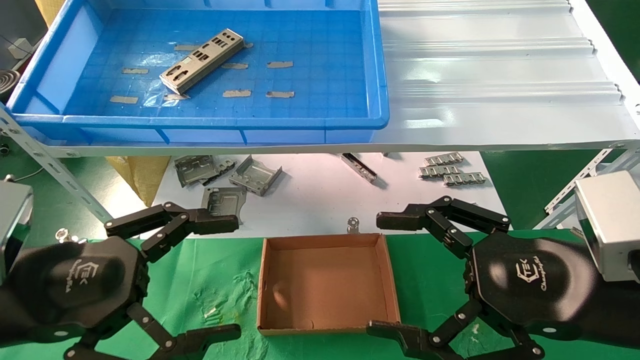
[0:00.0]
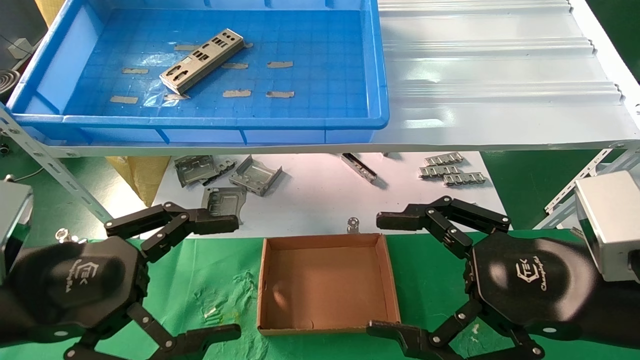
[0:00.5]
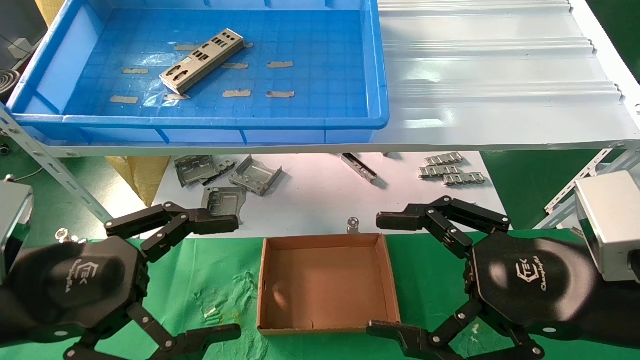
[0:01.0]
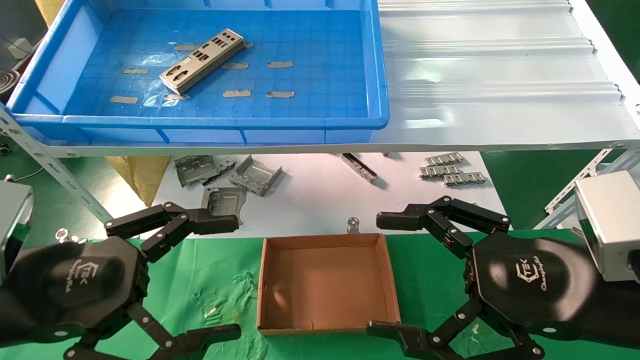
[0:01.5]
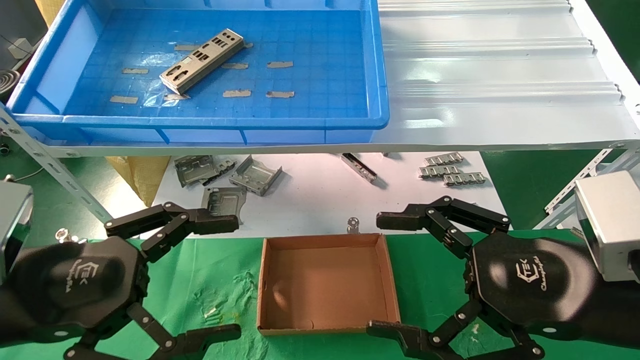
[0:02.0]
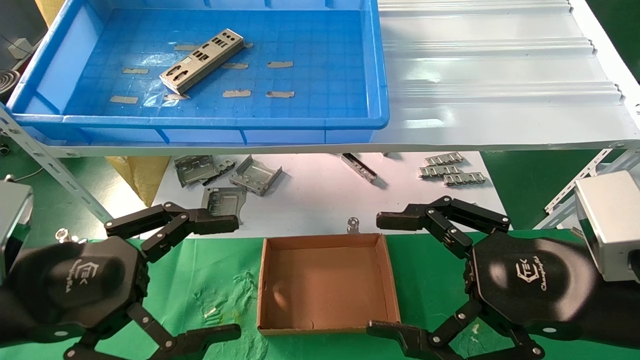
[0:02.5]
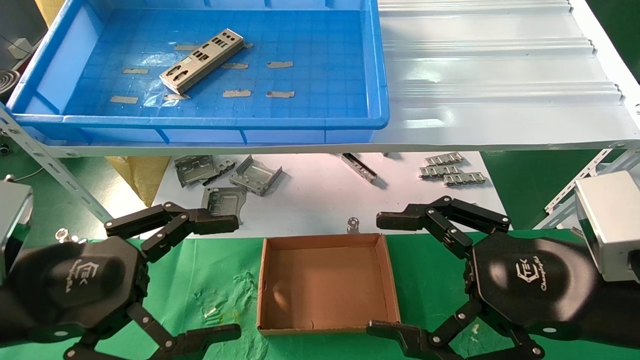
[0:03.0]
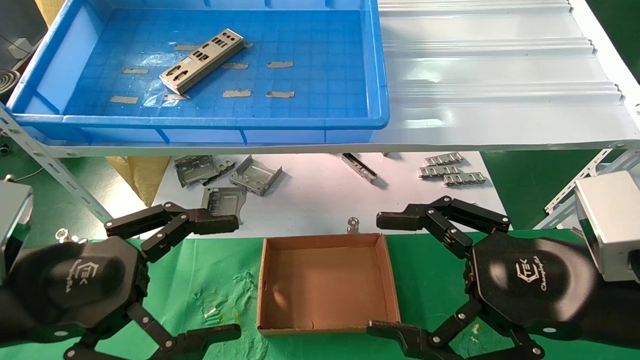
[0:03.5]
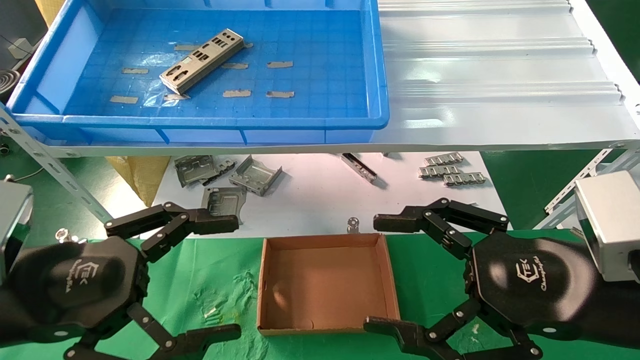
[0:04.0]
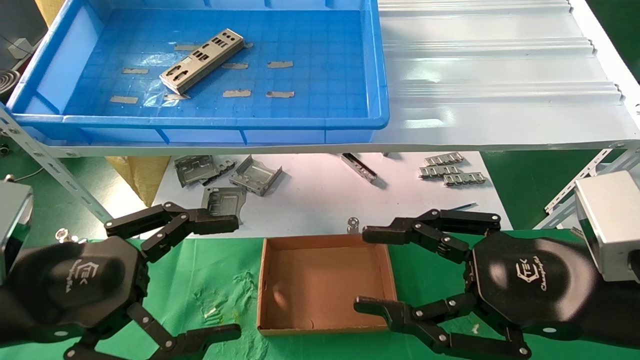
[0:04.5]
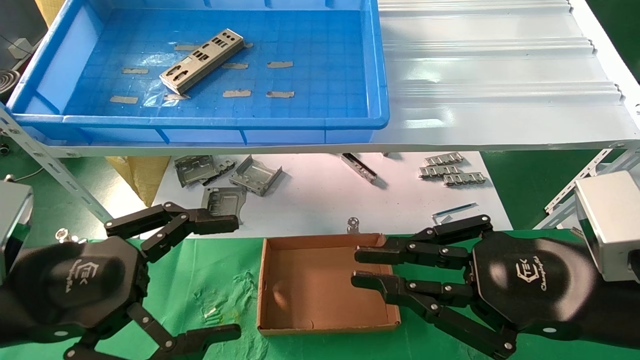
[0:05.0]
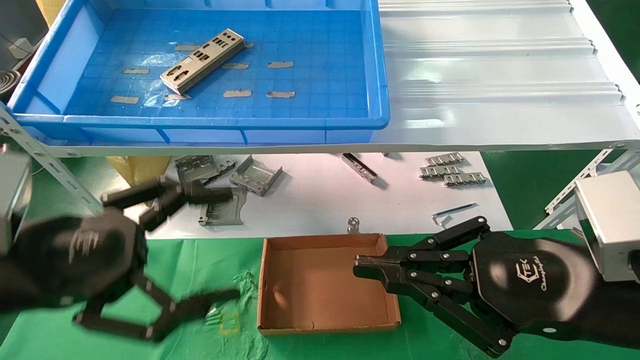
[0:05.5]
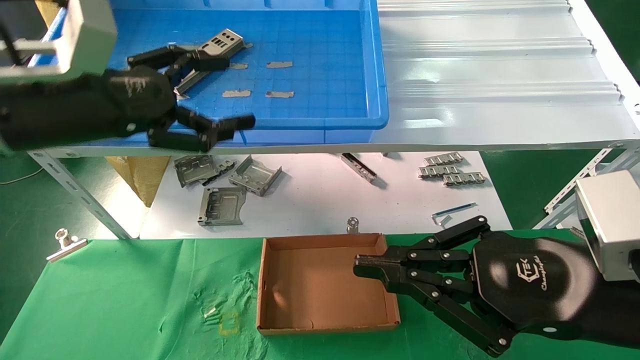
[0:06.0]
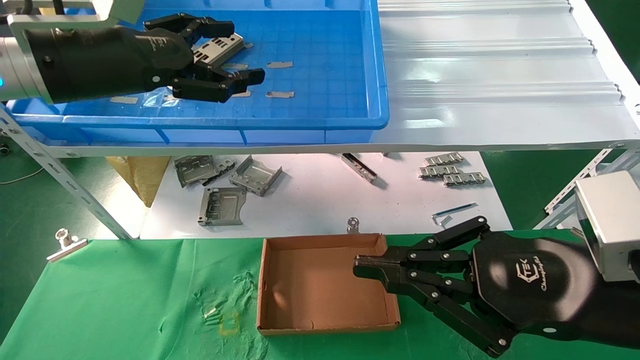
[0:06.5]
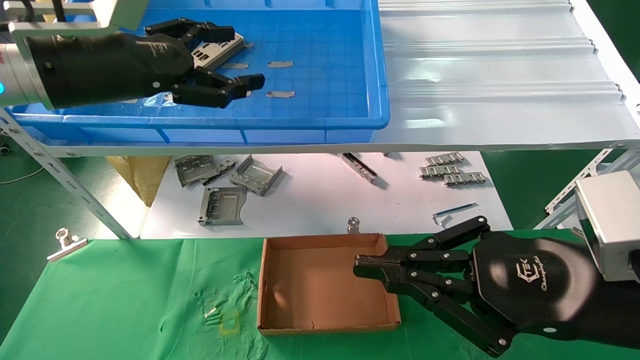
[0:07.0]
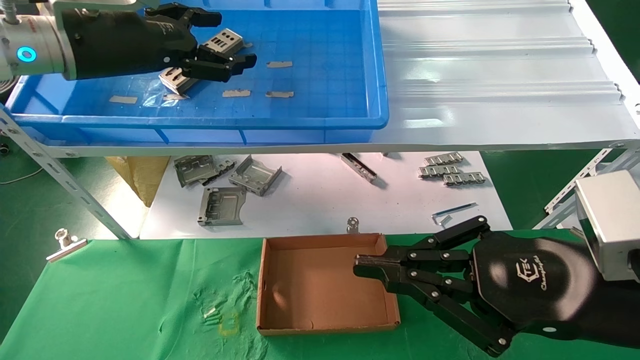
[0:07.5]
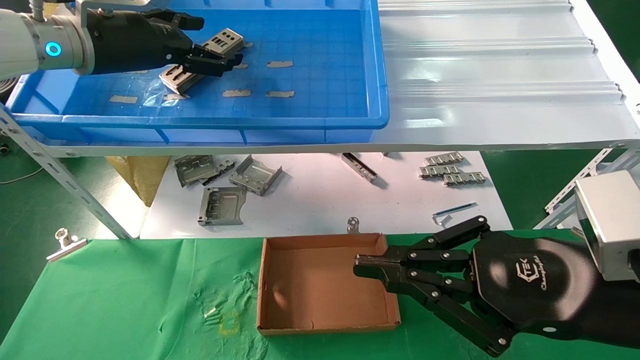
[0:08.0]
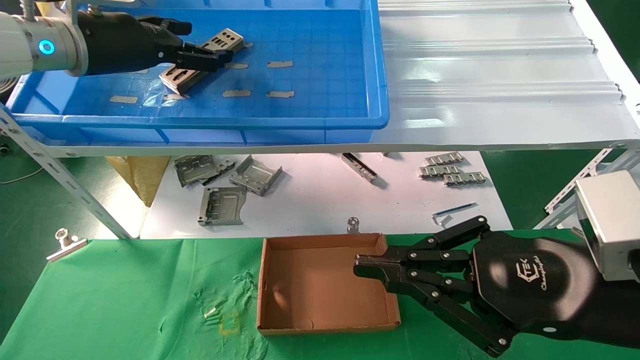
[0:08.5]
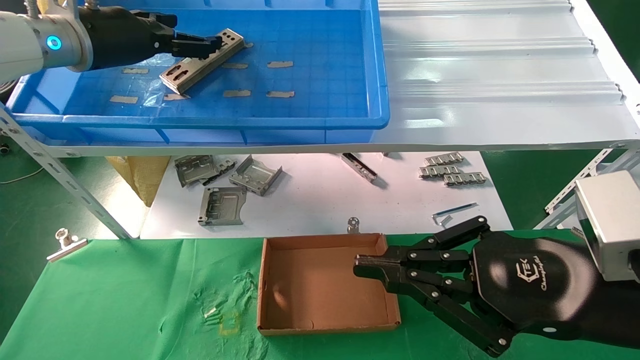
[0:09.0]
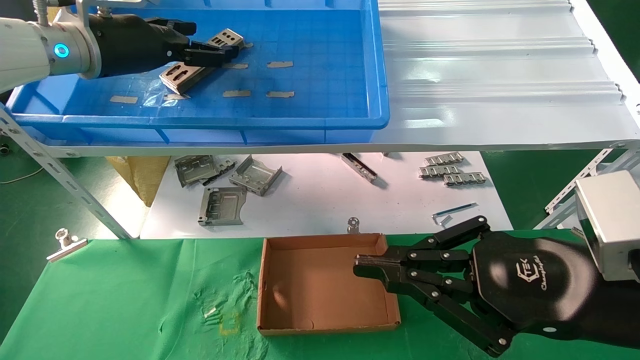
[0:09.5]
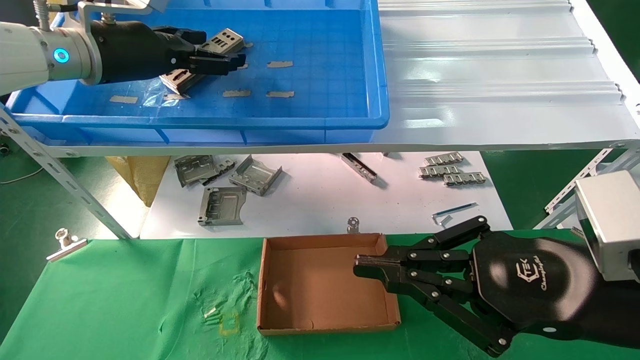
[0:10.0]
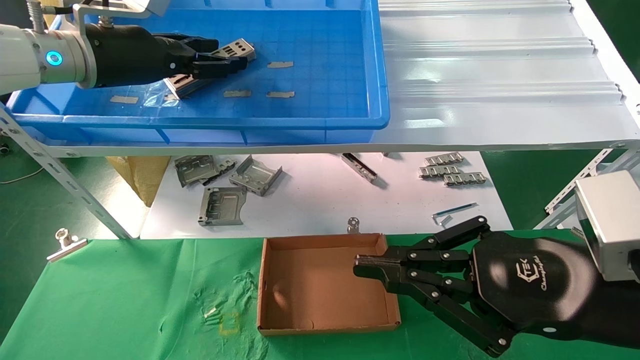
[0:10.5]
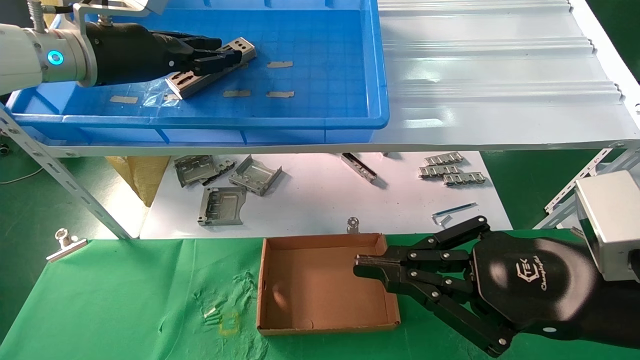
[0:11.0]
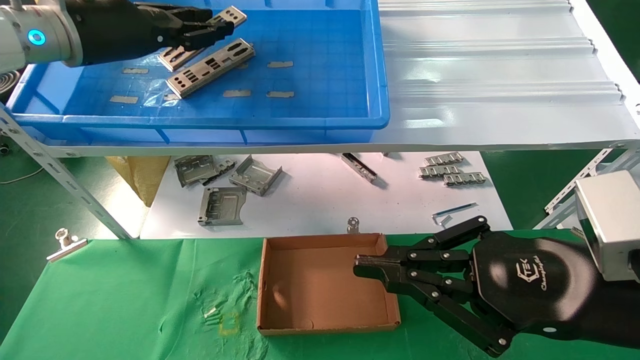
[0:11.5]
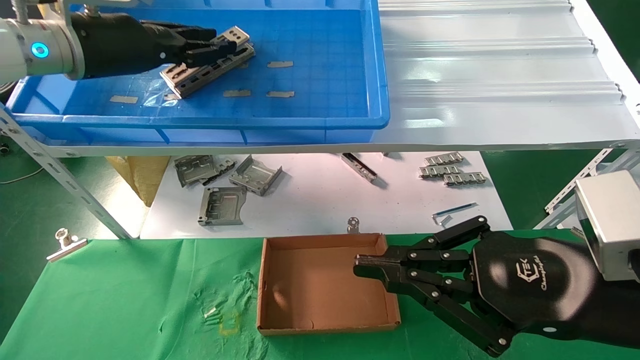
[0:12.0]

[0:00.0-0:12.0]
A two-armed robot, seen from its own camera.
Task of the whole recording: pick up the parts on the tray and put them in the cardboard box.
0:00.0 to 0:04.0: Neither gripper changes place.
0:04.0 to 0:06.0: The left gripper is displaced upward and forward by roughly 15 cm. Meanwhile the right gripper closes its fingers.
0:06.0 to 0:08.0: The left gripper travels forward and upward by about 15 cm.
0:08.0 to 0:10.0: There are only small adjustments of the grippers.
0:10.0 to 0:12.0: The left gripper closes up.

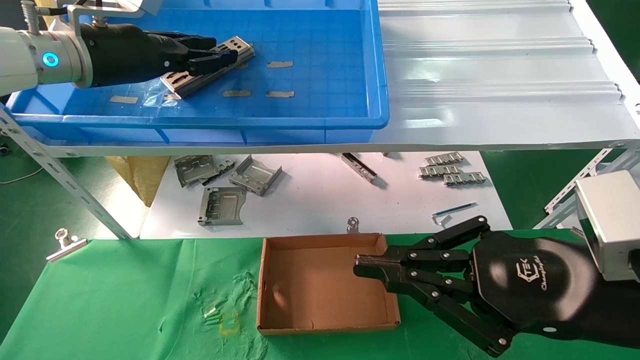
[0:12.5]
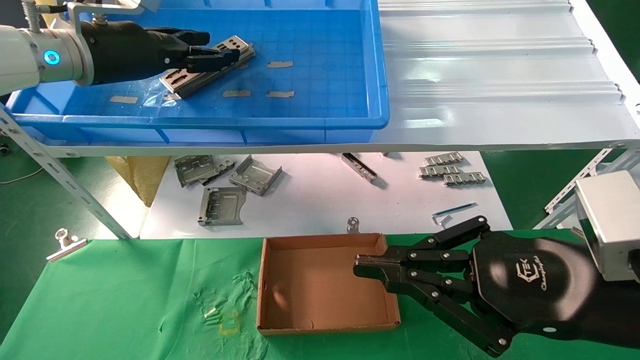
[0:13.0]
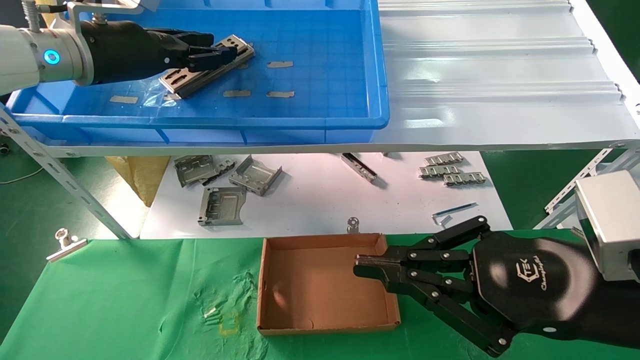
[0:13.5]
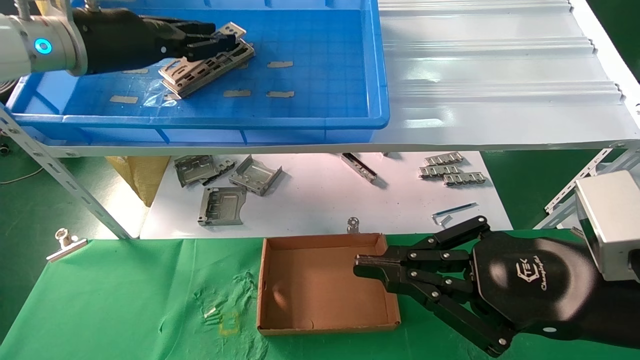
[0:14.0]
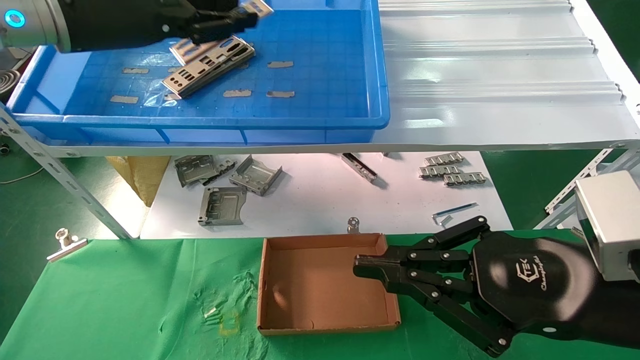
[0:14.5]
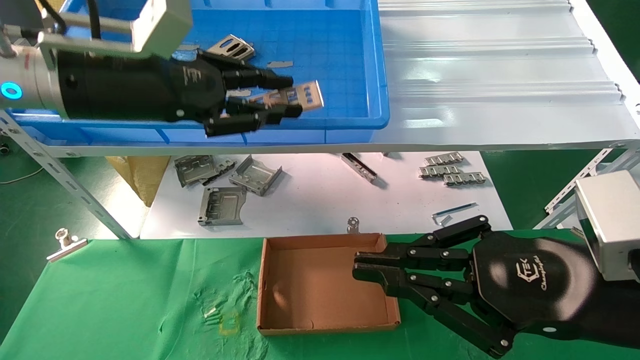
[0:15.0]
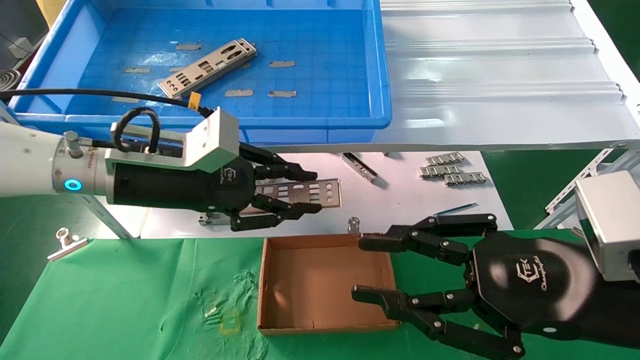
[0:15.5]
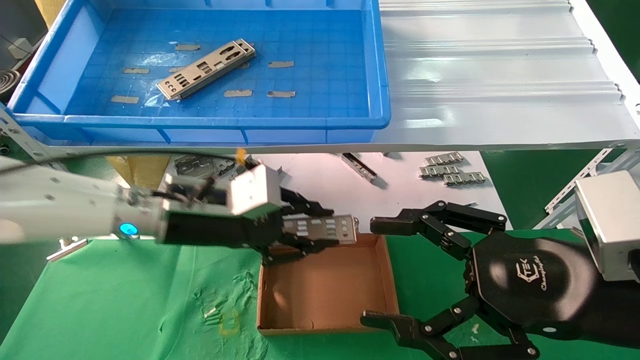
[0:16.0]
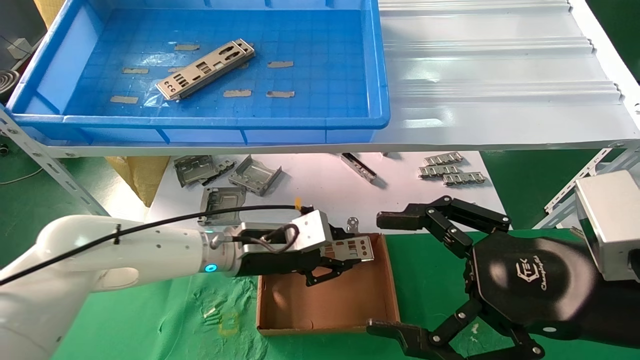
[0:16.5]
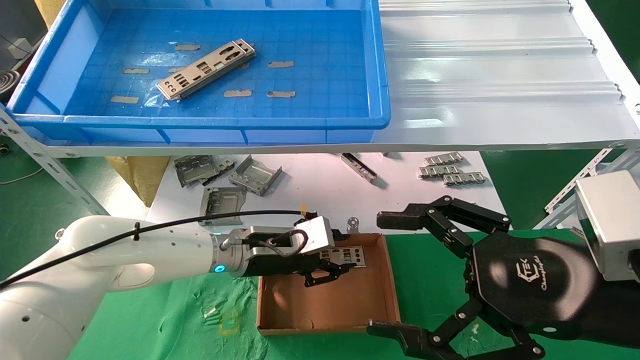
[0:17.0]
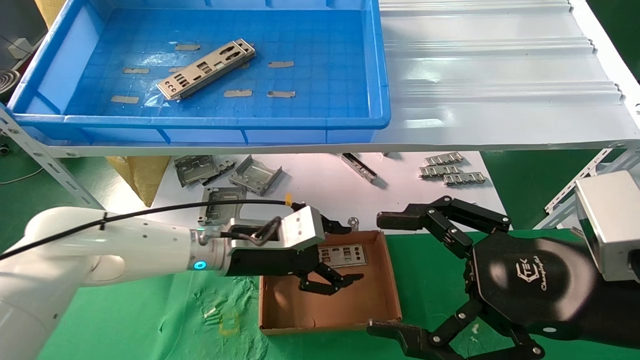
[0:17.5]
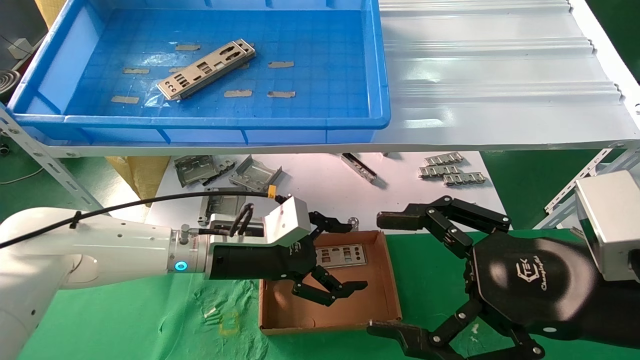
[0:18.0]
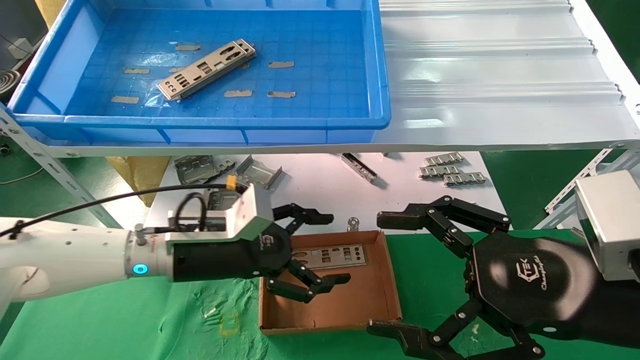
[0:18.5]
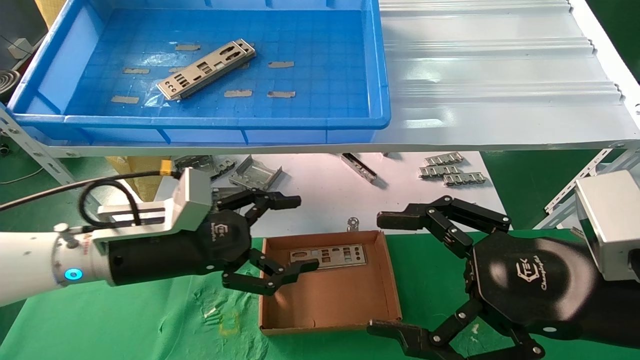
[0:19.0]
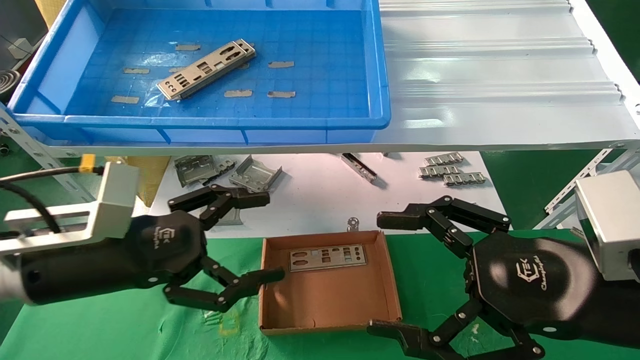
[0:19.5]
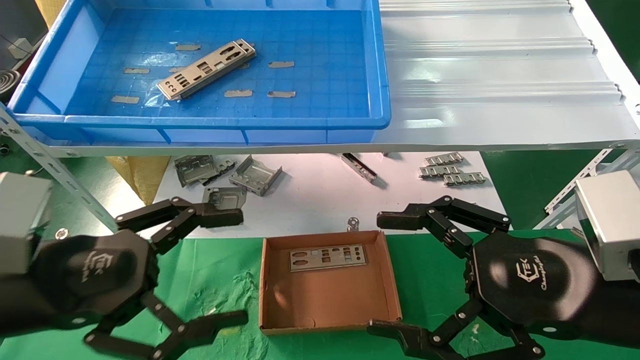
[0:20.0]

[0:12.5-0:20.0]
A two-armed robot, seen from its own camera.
Task of the whole recording: pick up the parts on the tray and put them in the cardboard box.
Step, 0:14.5 to 0:17.0: Place the IO bracket into the ingredient slot.
0:12.5 to 0:14.5: The left gripper shifts by about 5 cm.
0:14.5 to 0:16.5: The right gripper opens up. Meanwhile the left gripper moves downward and to the right, approximately 30 cm.
0:16.5 to 0:18.0: The left gripper opens up.
0:18.0 to 0:20.0: The left gripper shifts about 25 cm backward and to the left.
